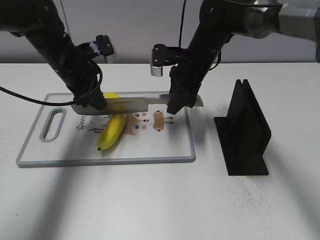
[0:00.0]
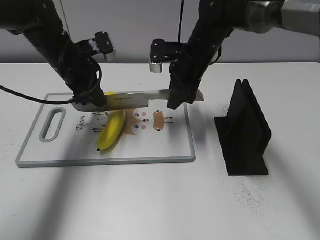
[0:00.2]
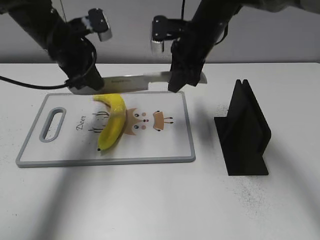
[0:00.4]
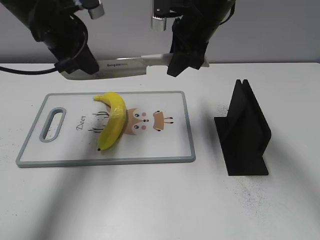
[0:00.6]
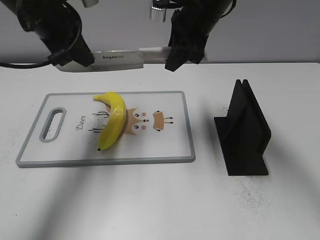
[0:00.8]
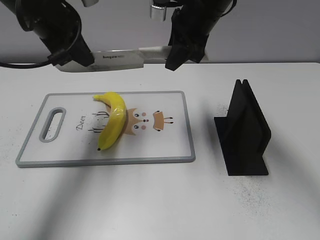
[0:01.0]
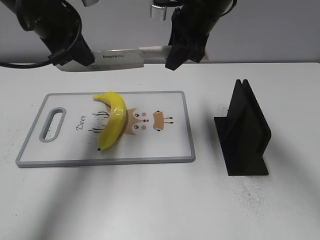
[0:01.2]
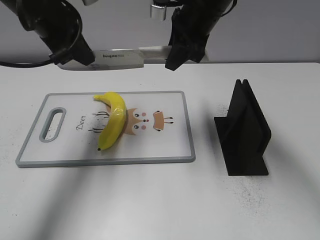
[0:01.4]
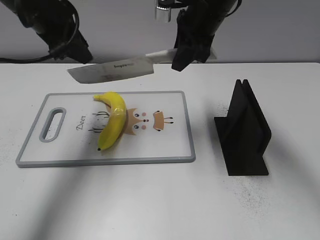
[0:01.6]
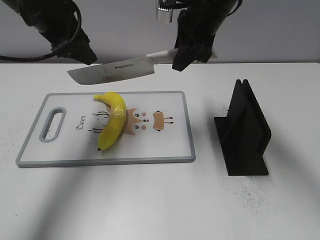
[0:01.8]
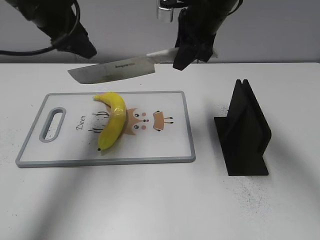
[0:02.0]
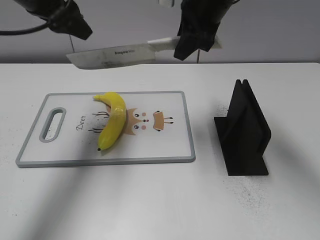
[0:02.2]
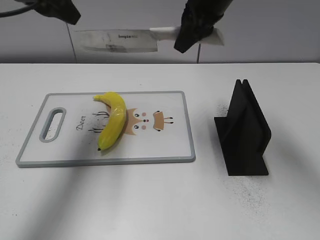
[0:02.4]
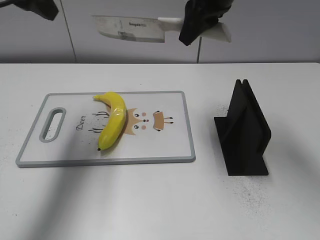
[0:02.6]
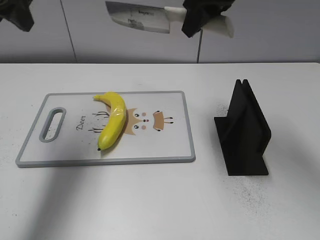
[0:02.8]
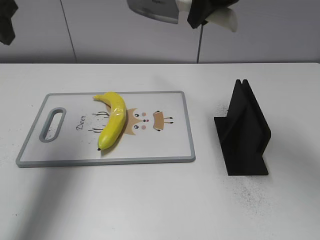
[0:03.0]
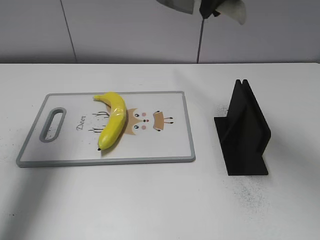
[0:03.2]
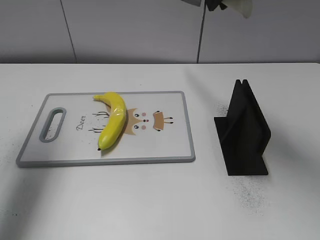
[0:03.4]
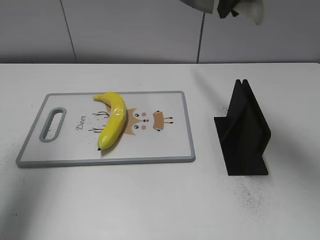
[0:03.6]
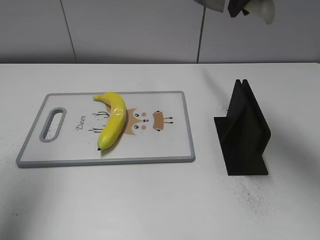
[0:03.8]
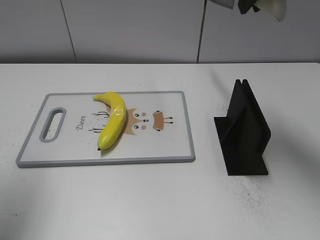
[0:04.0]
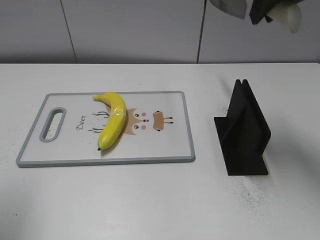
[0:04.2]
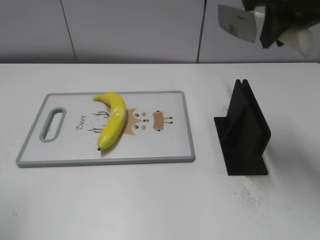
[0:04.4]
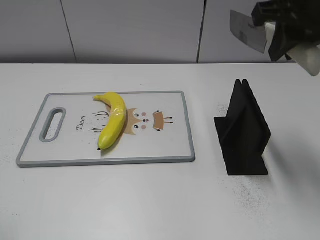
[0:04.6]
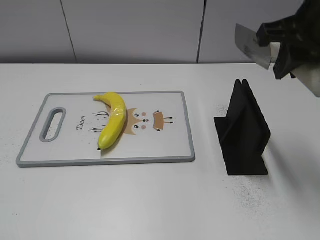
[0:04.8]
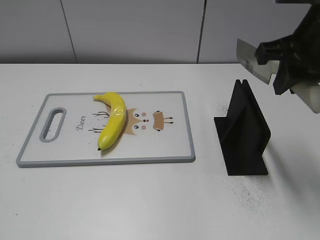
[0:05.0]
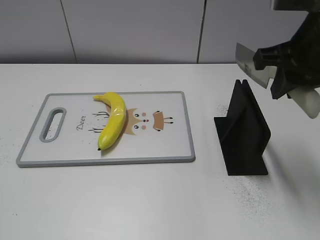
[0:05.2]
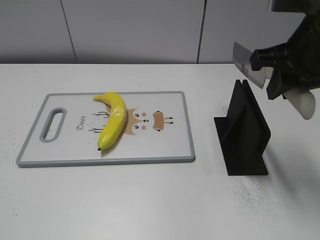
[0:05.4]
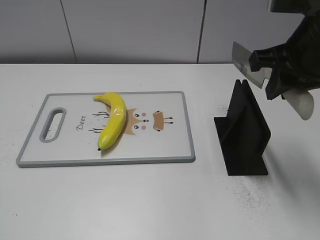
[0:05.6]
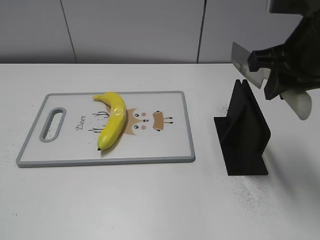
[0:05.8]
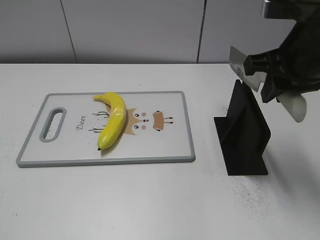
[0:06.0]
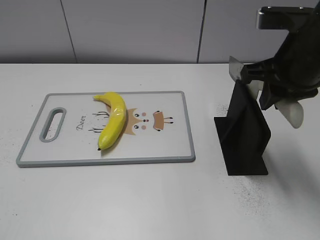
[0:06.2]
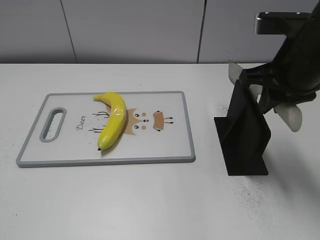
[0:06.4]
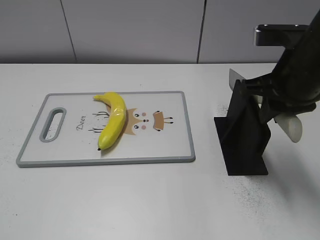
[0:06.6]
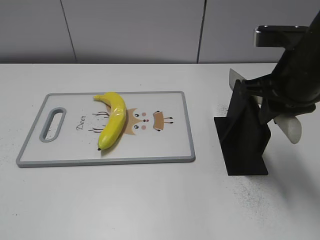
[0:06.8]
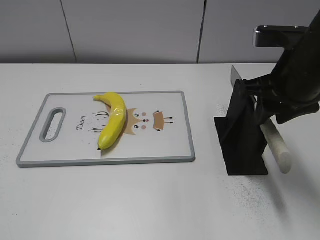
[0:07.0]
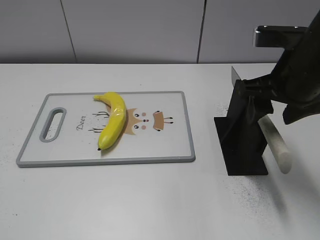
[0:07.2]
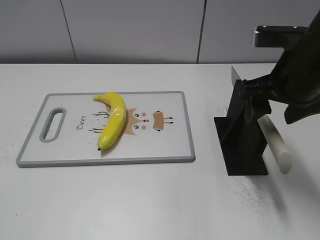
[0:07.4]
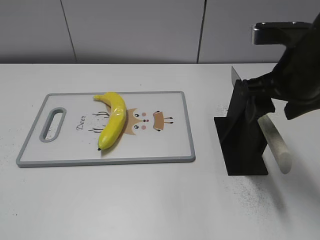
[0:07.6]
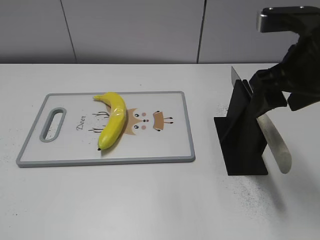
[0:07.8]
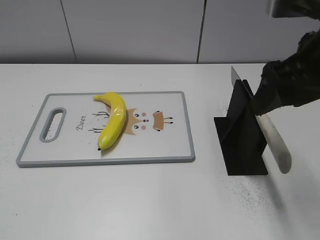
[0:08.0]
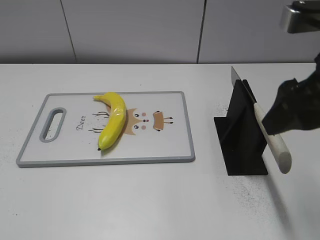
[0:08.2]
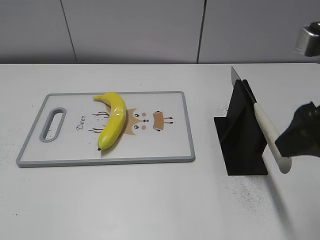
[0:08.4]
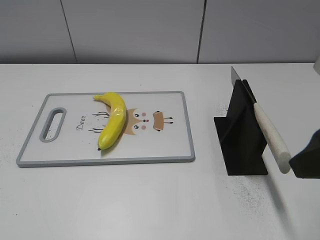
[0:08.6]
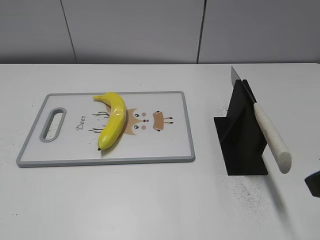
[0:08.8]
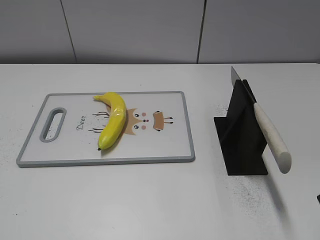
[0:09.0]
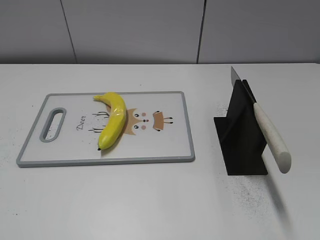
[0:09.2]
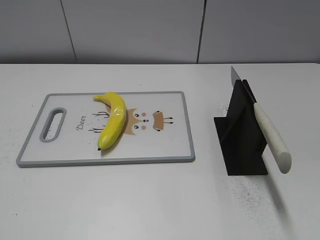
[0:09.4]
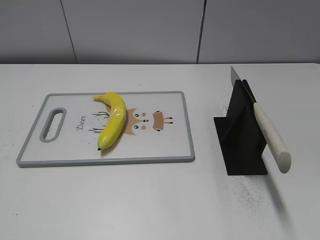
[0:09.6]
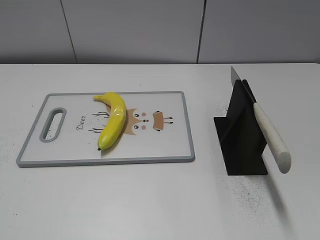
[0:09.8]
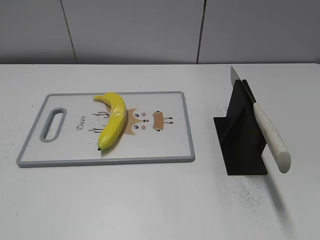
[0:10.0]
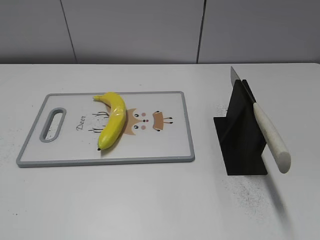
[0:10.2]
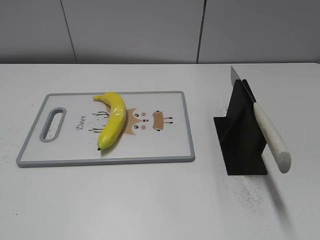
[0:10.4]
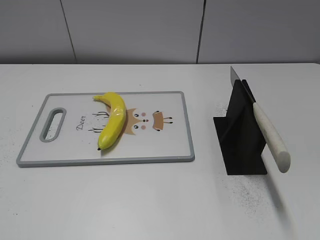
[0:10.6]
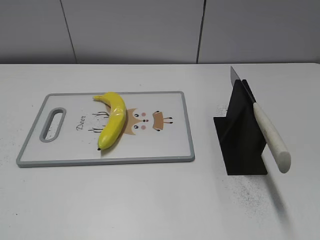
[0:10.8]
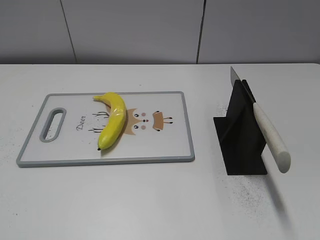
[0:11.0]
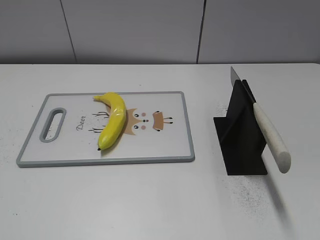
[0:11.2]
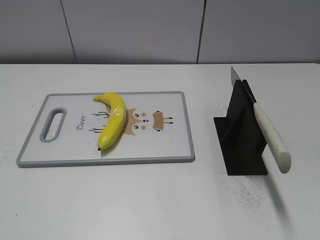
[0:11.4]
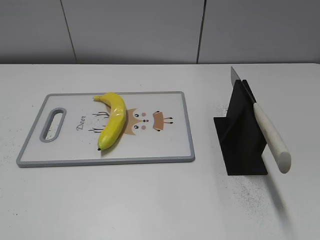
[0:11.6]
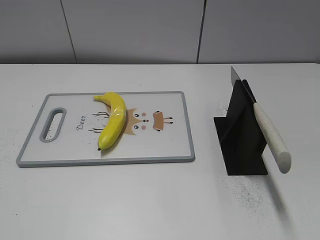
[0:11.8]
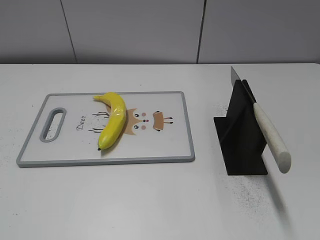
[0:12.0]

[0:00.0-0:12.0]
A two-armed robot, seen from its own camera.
Task of the whole recording: cut plastic banana.
Step, 0:01.2 to 0:02.4: Cut the banana with your right hand.
Step, 0:02.8 to 0:04.8: Lift the knife with your right hand.
Step, 0:05.0 to 0:11.8: Place the knife on the storage rack with your right hand.
0:00.0 to 0:01.6: The two grippers go some 10 cm upward. The left gripper opens its fingers.
0:01.6 to 0:03.0: The right gripper shifts some 10 cm upward, while the left gripper is displaced to the left and upward by some 10 cm, and opens.
0:03.0 to 0:04.4: The right gripper shifts roughly 10 cm backward and to the right. Meanwhile the left gripper heads backward, covering approximately 20 cm.
0:04.4 to 0:06.0: The right gripper shifts roughly 10 cm downward.
0:06.0 to 0:07.6: The right gripper opens.
0:07.6 to 0:09.0: The right gripper is displaced backward by some 15 cm.

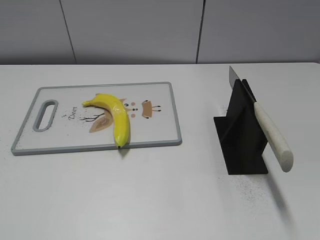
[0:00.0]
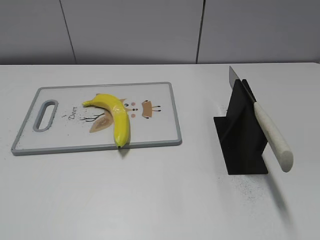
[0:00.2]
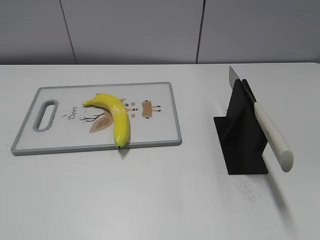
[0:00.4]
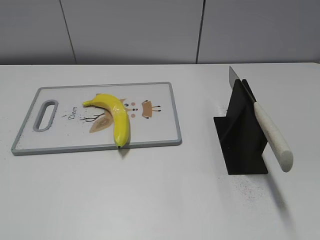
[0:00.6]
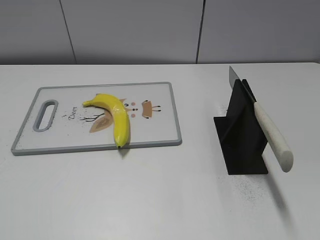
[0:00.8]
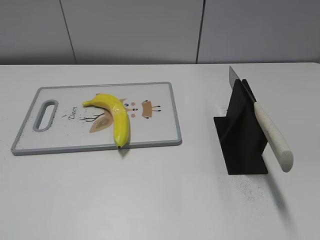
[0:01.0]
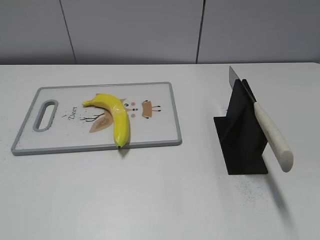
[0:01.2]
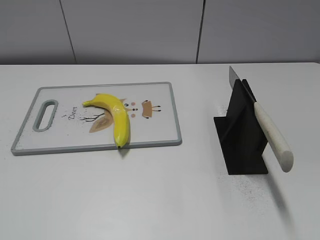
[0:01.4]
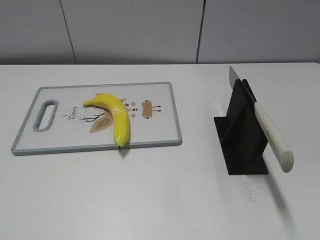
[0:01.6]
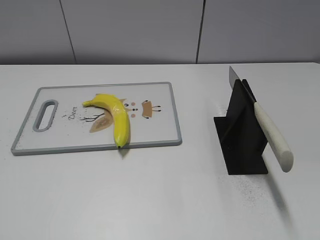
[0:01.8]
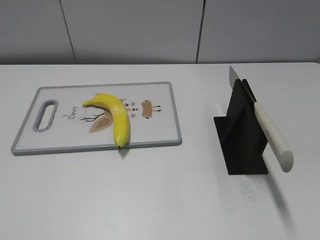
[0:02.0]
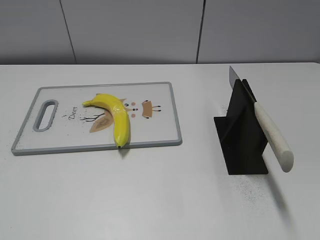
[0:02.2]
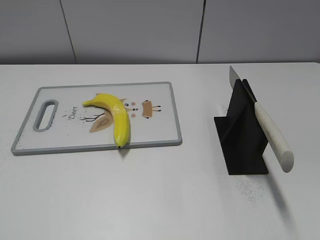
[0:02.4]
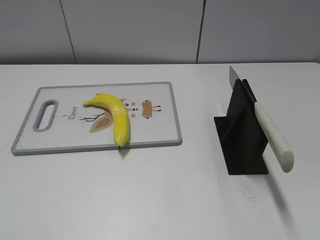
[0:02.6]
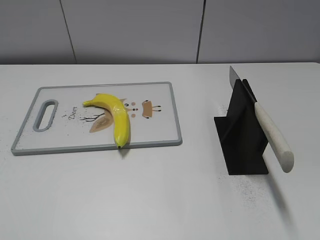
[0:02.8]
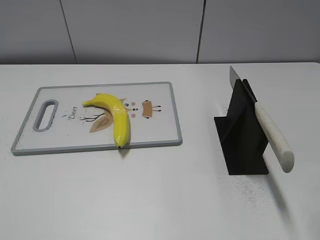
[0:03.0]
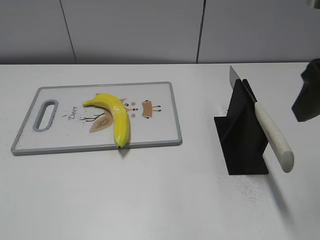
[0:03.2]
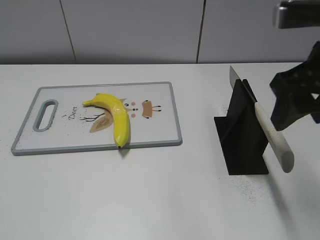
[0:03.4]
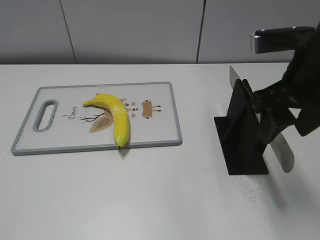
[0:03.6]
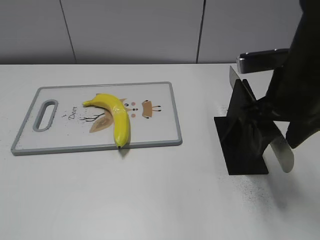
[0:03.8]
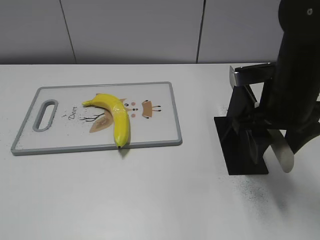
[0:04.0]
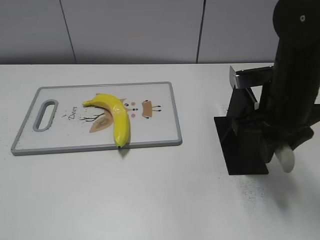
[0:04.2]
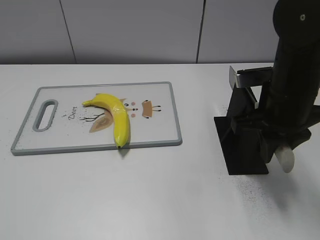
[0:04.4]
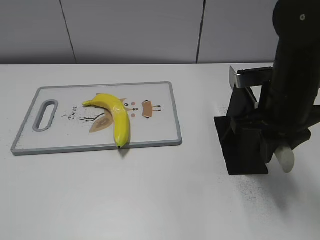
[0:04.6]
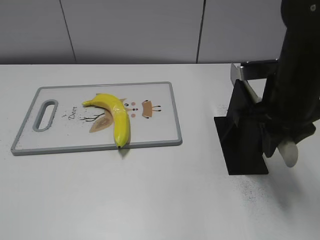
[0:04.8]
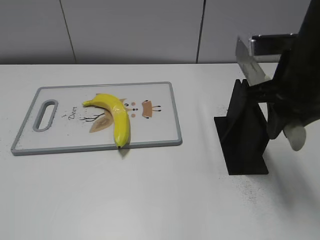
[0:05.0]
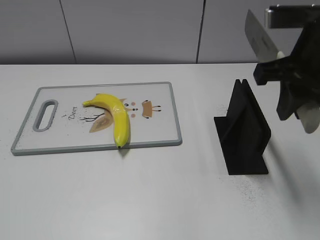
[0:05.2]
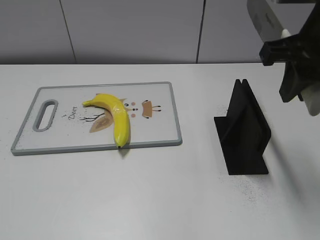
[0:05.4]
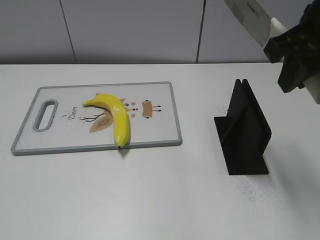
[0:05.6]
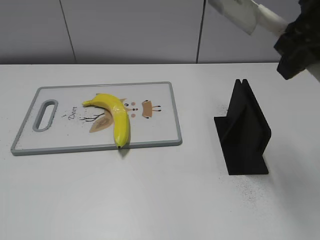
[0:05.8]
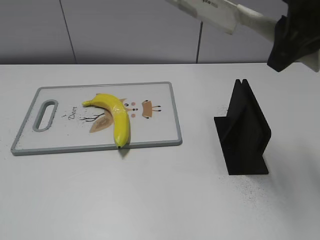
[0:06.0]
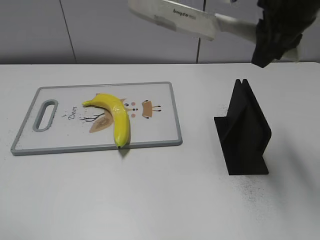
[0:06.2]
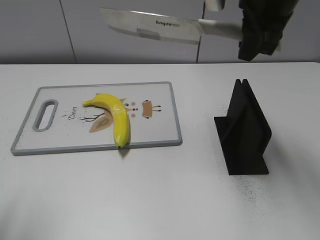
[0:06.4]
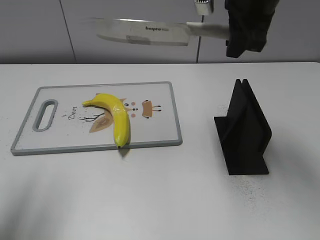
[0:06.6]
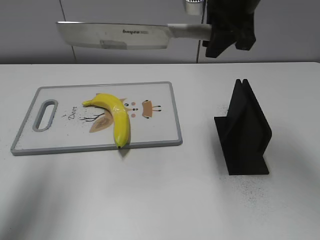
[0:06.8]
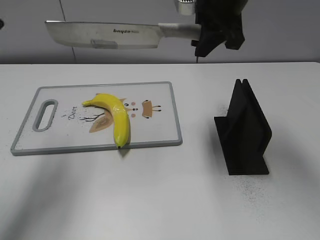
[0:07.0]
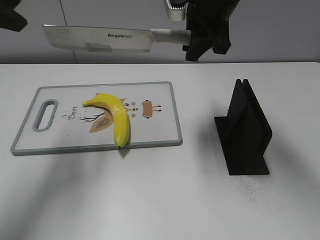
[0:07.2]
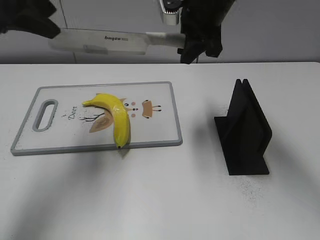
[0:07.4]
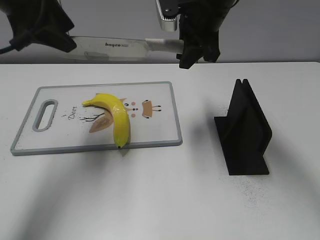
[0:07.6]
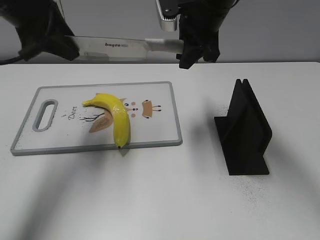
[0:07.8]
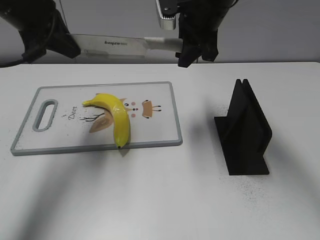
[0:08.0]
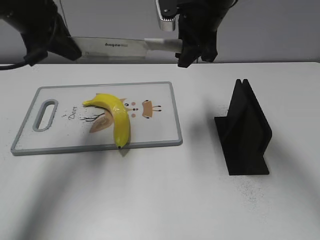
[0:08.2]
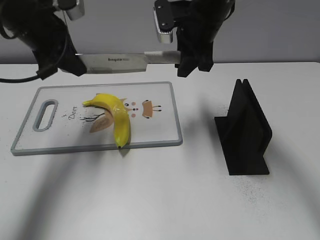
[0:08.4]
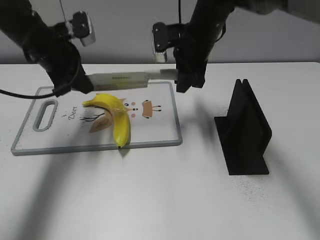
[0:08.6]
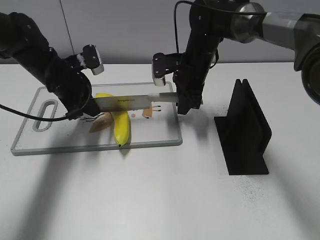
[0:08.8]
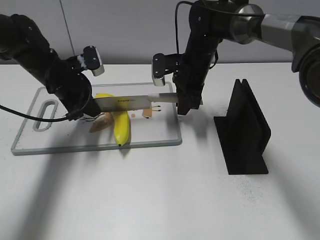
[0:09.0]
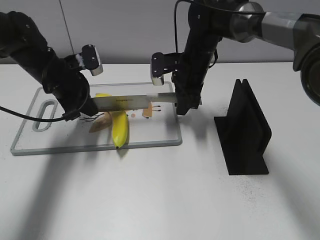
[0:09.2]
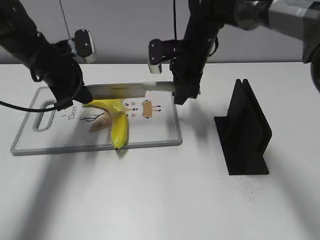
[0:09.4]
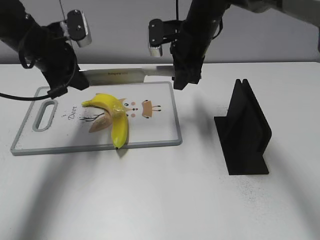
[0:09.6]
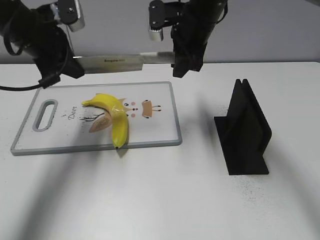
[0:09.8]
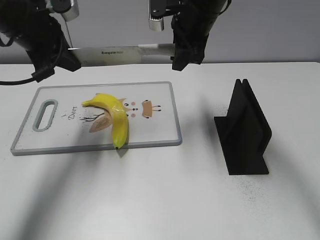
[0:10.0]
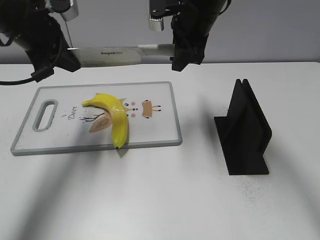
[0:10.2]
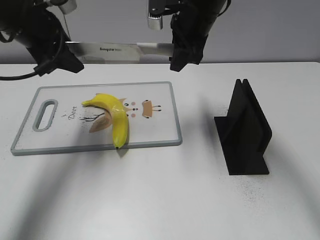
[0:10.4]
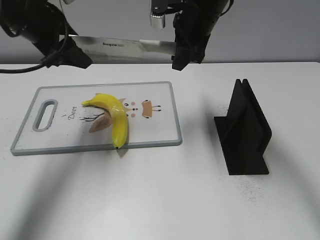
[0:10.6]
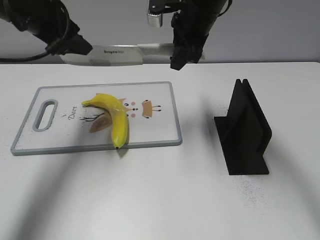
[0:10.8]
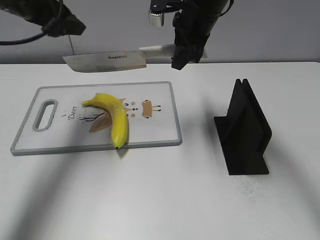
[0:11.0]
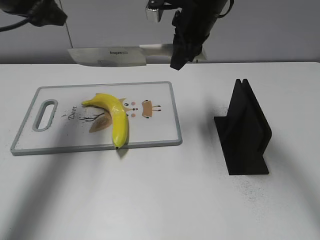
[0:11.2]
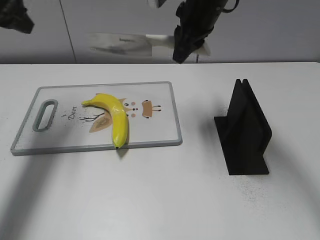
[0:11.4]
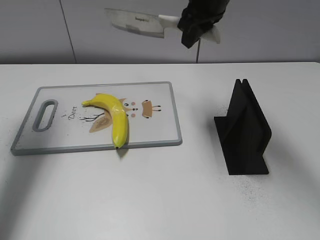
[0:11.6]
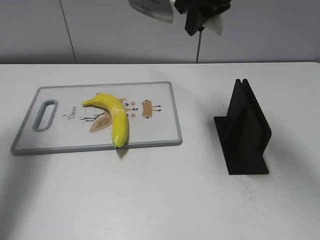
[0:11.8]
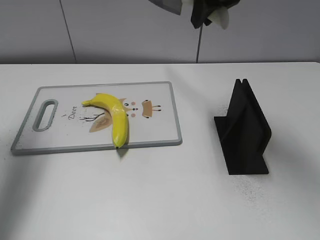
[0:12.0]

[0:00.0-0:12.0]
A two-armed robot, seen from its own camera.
Task of the whole recording: cut plastic banana.
Step, 0:00.0 to 0:05.6: Grab the knife handle with your right hand.
Step, 0:05.8 to 0:09.8: Lift the knife with your right hand.
0:03.0 to 0:04.4: The right gripper is displaced downward, forward and to the left by roughly 20 cm, and closes its fingers.
0:04.4 to 0:06.0: The right gripper shifts approximately 15 cm upward.
0:06.0 to 0:07.6: The right gripper shifts some 20 cm forward, to the left and downward. Meanwhile the left gripper moves forward, some 30 cm.
0:07.6 to 0:09.0: Both grippers move downward, some 15 cm. The left gripper closes up.
0:09.0 to 0:10.4: Both grippers travel together upward, roughly 15 cm. The left gripper opens its fingers.
0:10.4 to 0:12.0: The left gripper heads to the left and upward, covering roughly 15 cm; the right gripper is displaced upward by about 10 cm.
